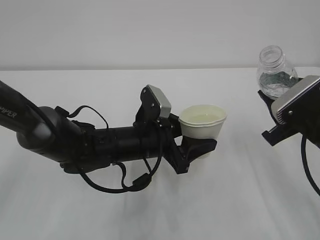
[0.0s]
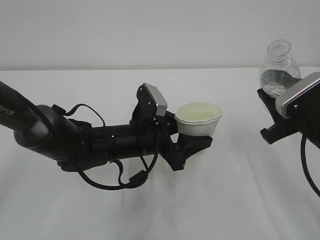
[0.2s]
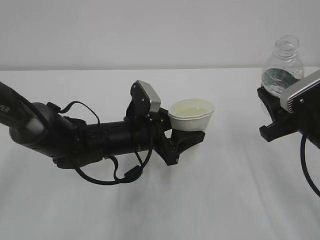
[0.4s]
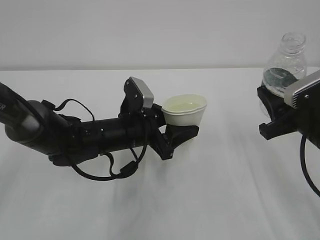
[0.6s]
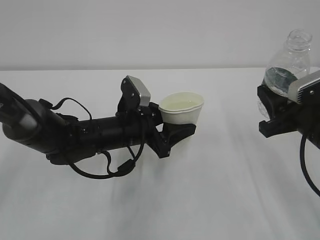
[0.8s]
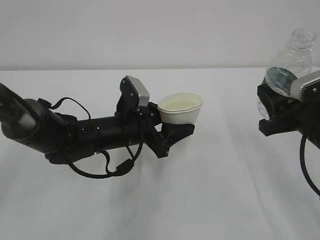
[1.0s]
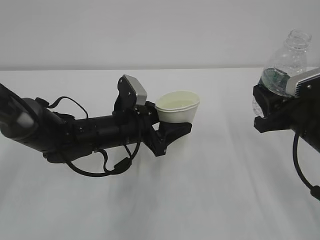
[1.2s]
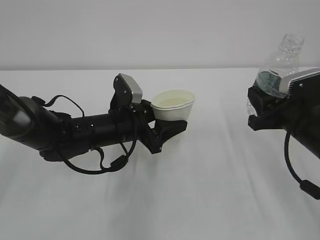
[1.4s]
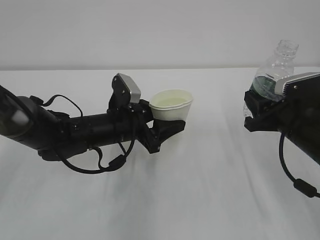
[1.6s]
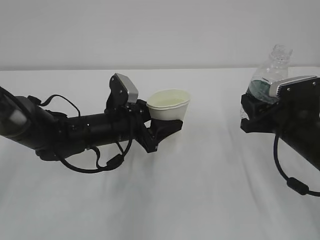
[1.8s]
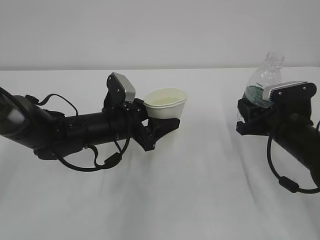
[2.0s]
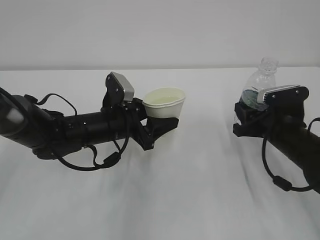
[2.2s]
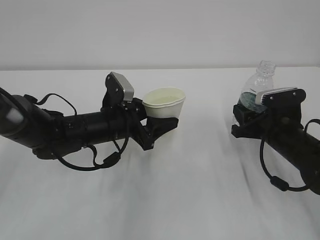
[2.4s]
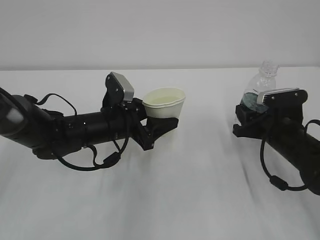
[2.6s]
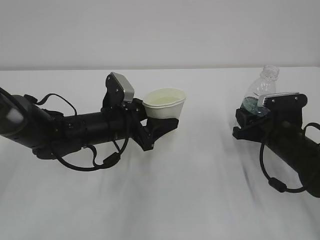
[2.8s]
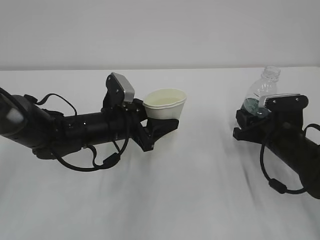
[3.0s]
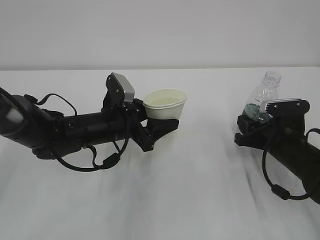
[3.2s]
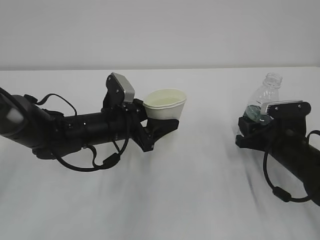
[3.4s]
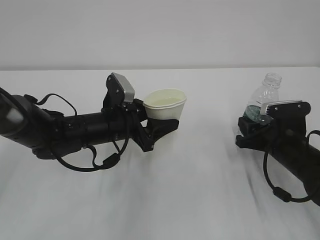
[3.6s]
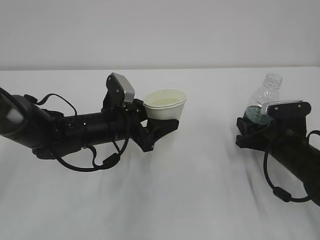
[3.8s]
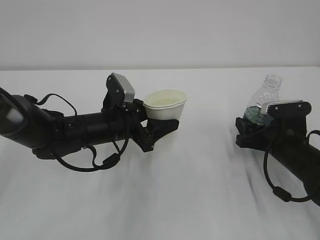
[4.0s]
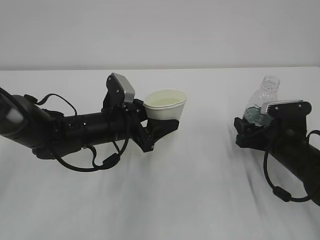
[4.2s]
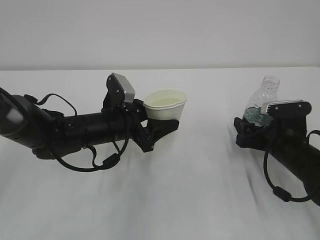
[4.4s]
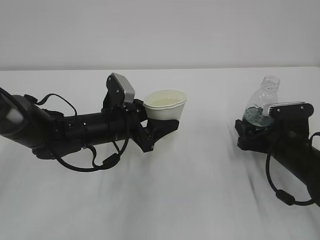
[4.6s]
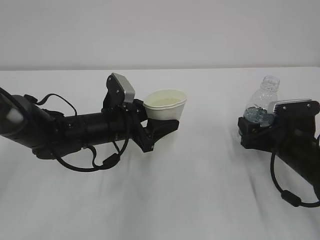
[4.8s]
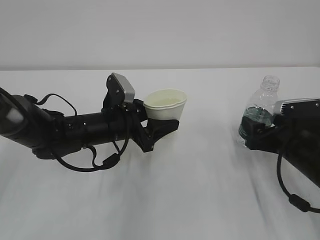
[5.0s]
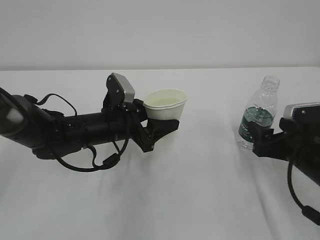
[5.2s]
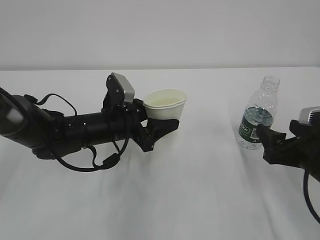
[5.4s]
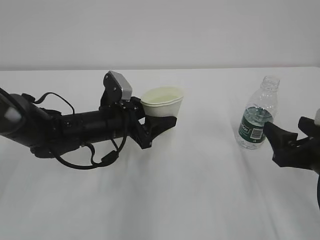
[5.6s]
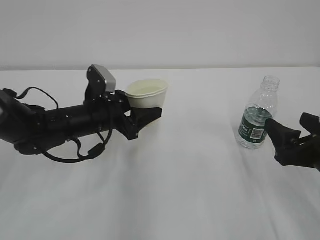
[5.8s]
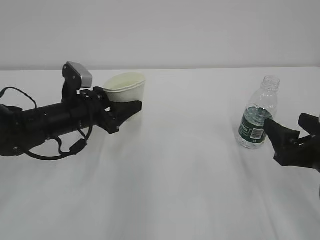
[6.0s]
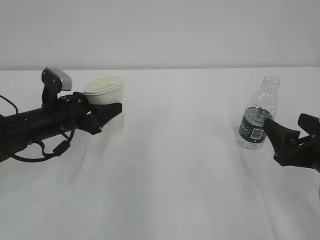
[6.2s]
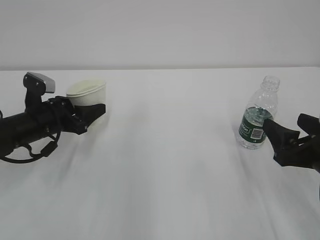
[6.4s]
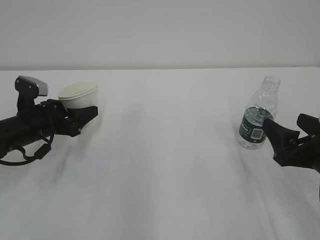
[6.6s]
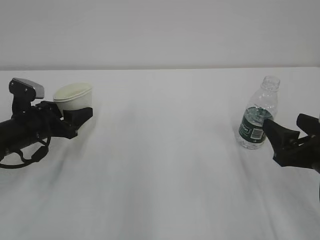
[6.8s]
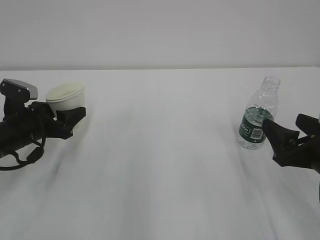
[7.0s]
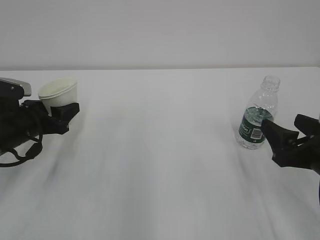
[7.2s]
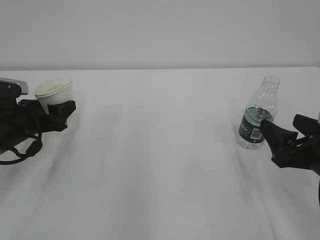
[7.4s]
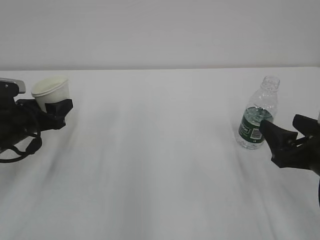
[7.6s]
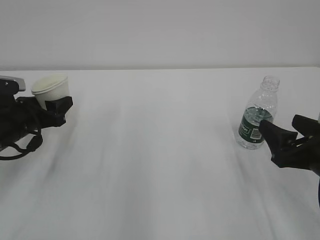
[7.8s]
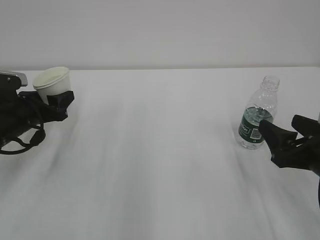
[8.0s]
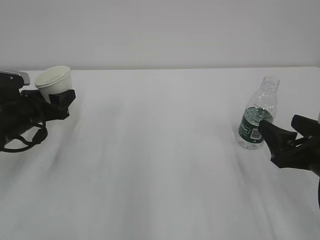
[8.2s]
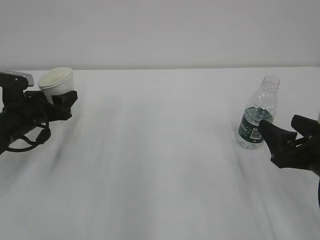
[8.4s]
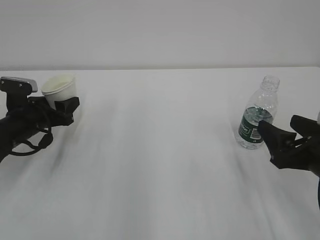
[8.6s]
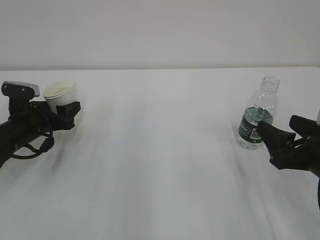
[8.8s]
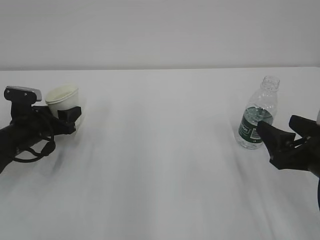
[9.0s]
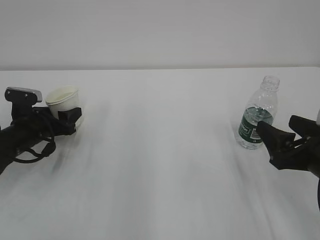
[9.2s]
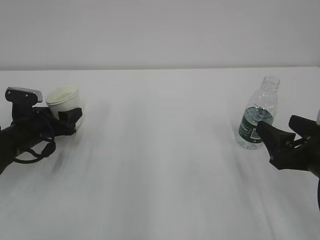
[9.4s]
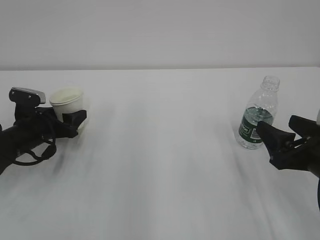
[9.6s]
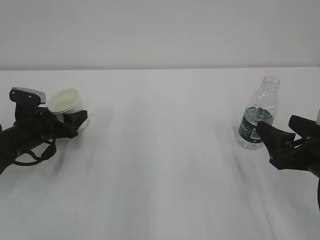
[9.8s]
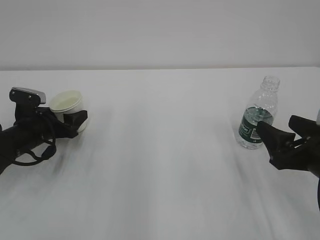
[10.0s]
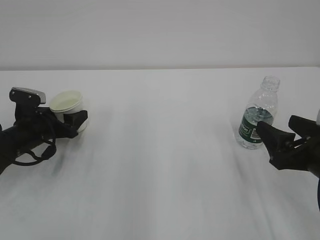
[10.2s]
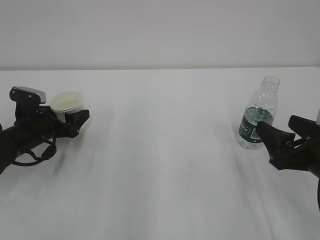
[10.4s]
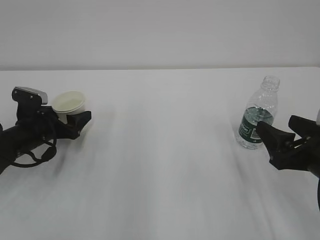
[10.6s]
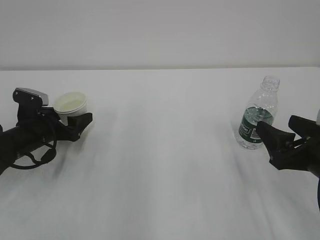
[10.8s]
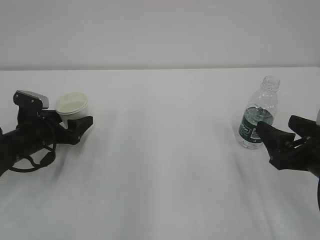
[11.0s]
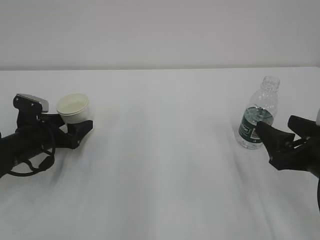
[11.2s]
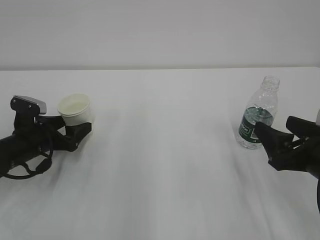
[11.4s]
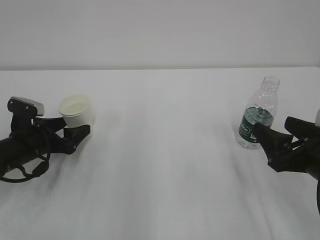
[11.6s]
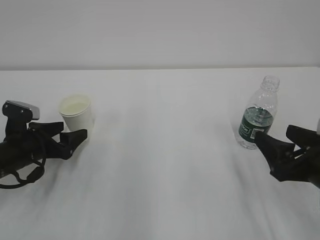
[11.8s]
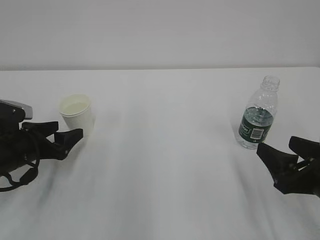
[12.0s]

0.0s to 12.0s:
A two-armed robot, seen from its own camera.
0.0s to 1.6s: The left gripper shifts by roughly 5 cm.
1.6s to 3.0s: The right gripper goes approximately 5 cm downward.
3.0s to 4.4s: The right gripper opens up.
4.4s to 6.0s: The right gripper heads backward and upward, covering some 15 cm, while the left gripper heads to the left, covering some 5 cm.
6.0s to 7.6s: The left gripper travels to the left by some 10 cm.
7.6s to 9.0s: The grippers move only a little.
9.0s to 10.4s: The left gripper opens its fingers.
10.4s to 12.0s: The left gripper shifts roughly 5 cm backward.

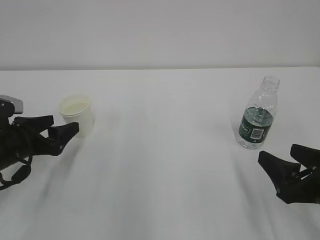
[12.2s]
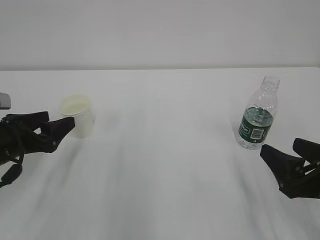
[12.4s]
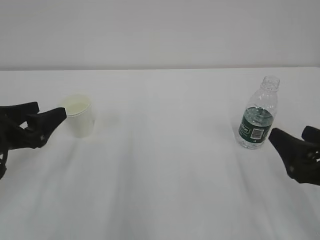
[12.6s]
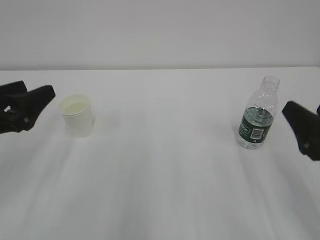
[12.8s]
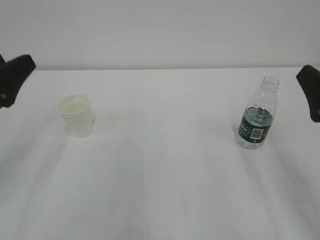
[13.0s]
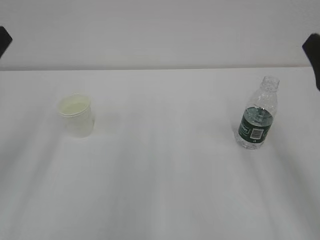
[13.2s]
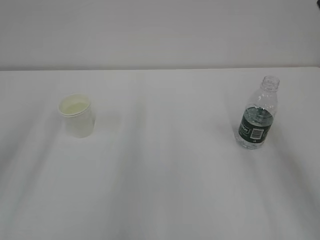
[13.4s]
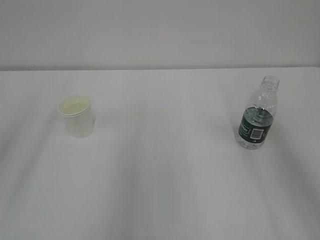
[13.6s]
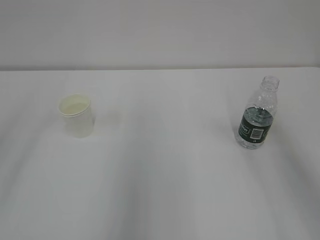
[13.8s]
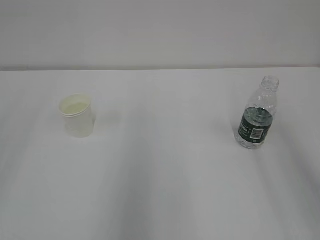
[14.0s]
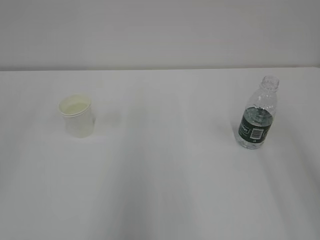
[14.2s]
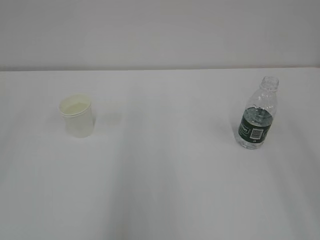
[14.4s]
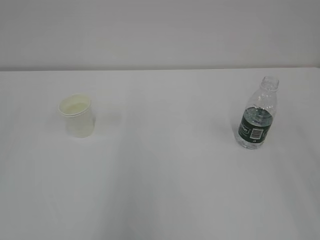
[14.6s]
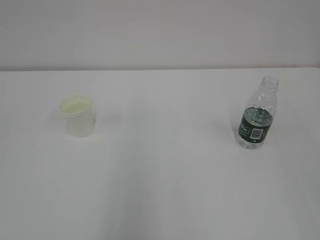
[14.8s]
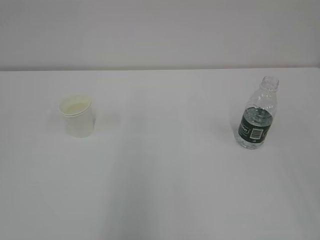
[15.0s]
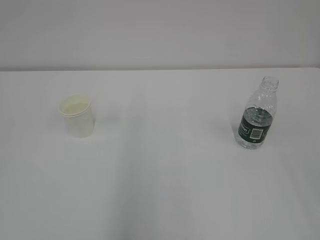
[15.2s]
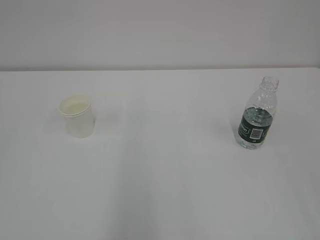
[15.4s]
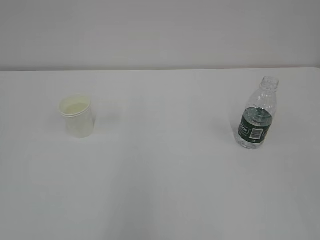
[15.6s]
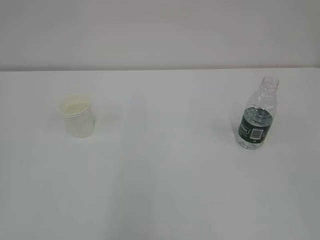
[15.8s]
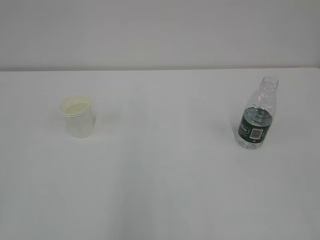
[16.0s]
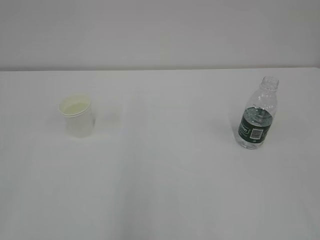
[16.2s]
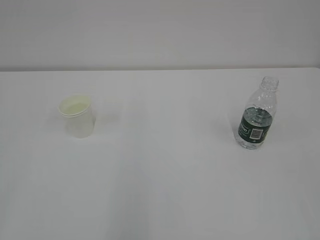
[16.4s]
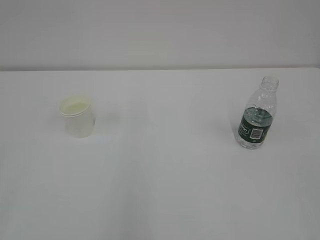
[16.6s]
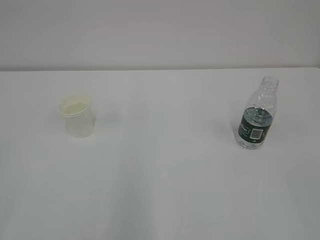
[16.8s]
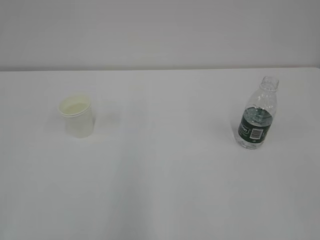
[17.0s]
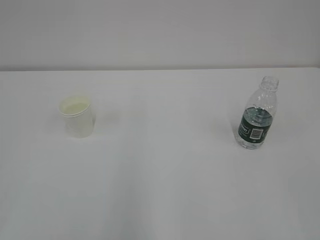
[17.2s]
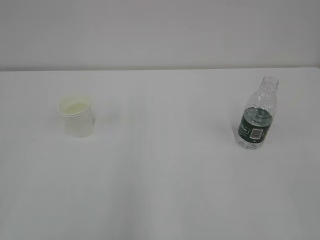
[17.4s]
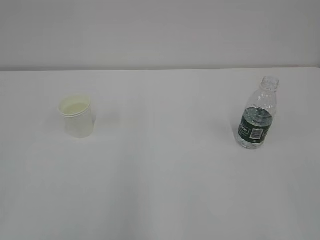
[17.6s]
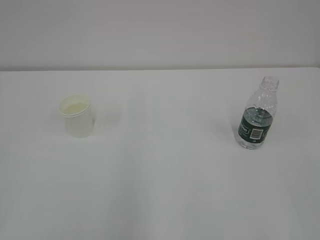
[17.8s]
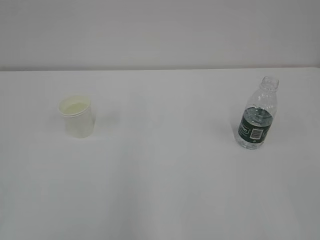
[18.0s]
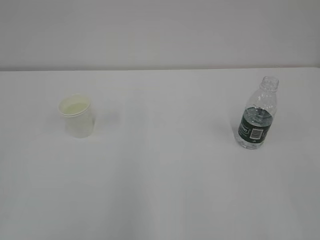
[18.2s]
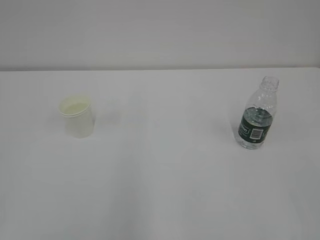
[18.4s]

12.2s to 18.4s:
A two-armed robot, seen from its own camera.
12.2s to 13.8s: The right gripper is displaced upward by roughly 25 cm; the left gripper is displaced upward and backward by some 30 cm.
